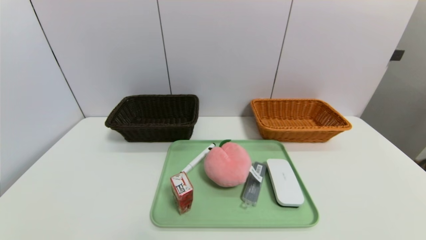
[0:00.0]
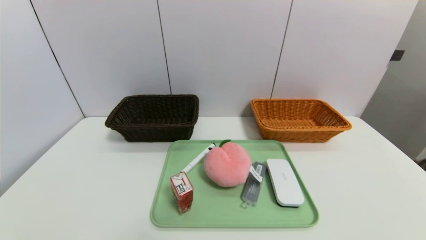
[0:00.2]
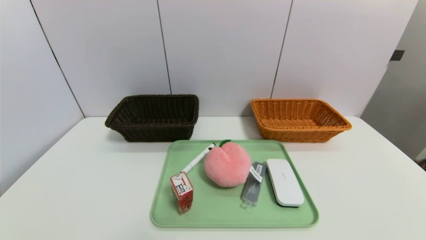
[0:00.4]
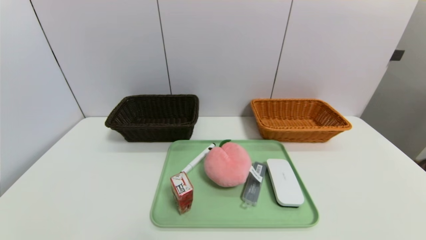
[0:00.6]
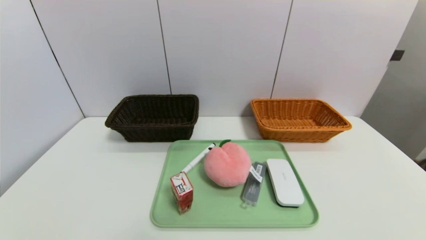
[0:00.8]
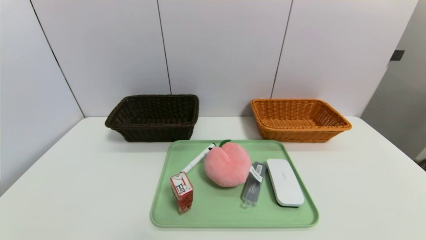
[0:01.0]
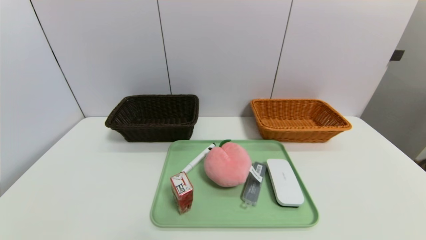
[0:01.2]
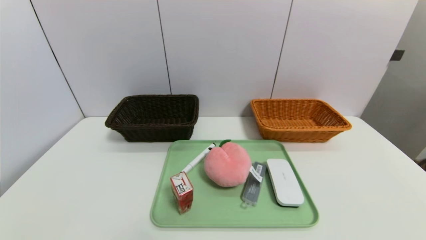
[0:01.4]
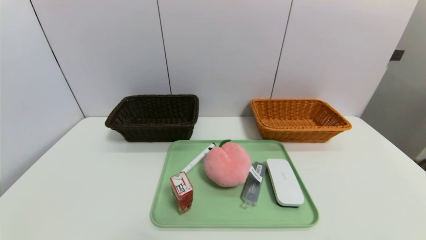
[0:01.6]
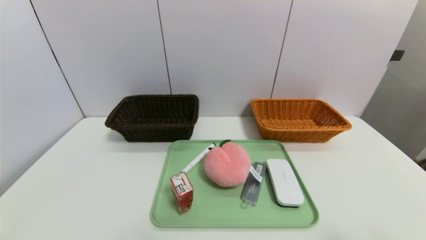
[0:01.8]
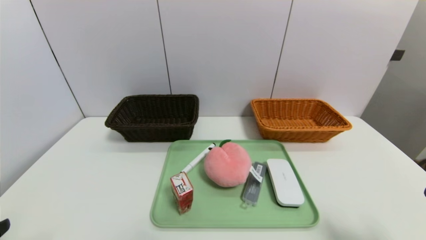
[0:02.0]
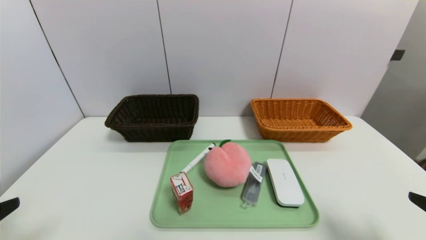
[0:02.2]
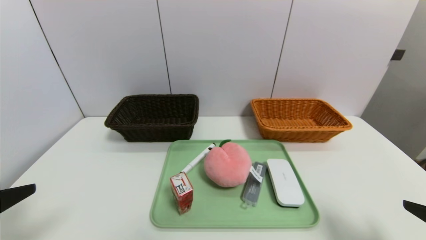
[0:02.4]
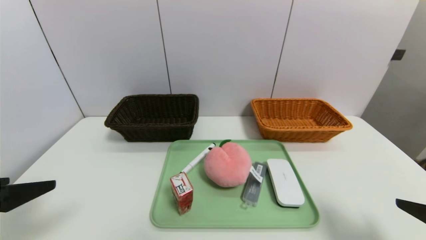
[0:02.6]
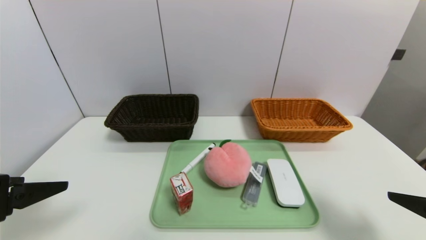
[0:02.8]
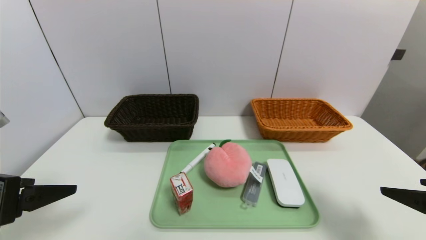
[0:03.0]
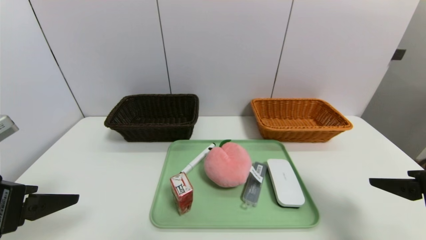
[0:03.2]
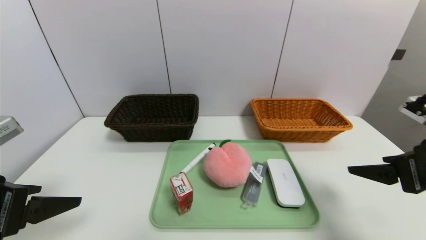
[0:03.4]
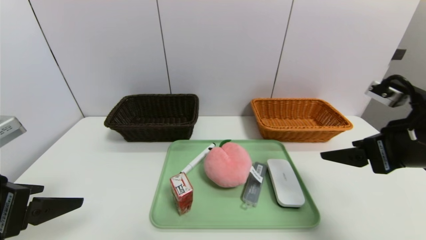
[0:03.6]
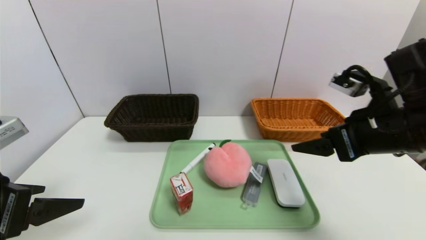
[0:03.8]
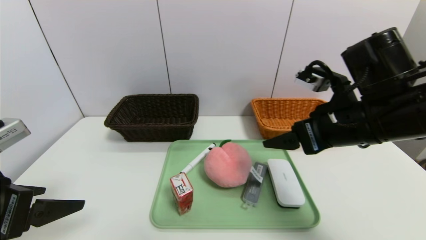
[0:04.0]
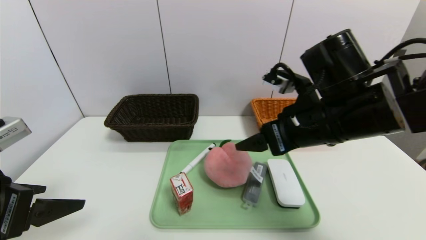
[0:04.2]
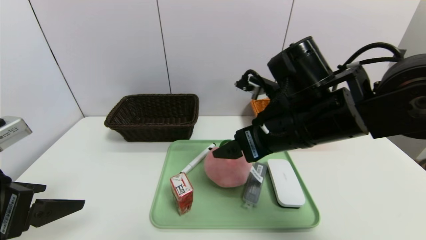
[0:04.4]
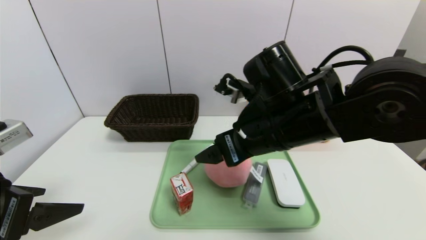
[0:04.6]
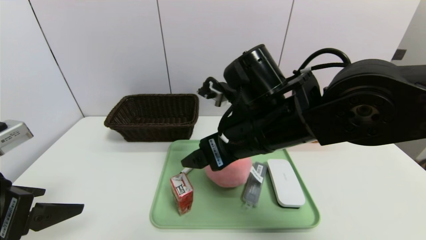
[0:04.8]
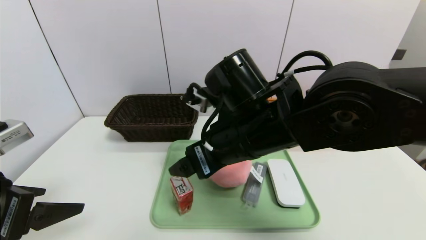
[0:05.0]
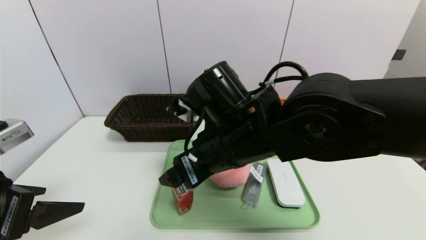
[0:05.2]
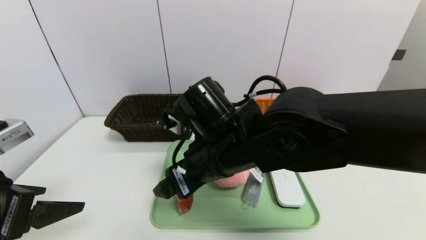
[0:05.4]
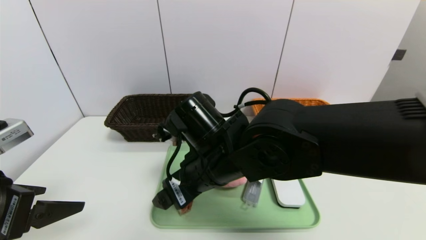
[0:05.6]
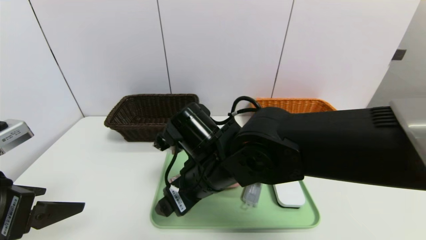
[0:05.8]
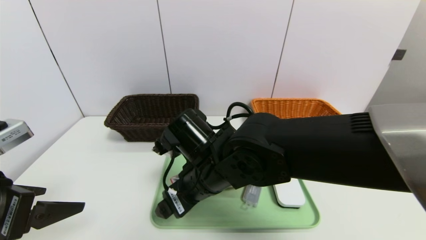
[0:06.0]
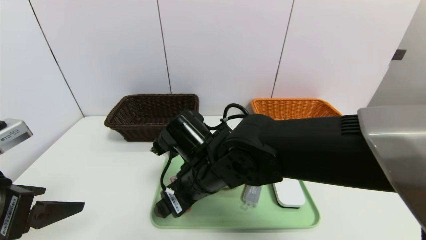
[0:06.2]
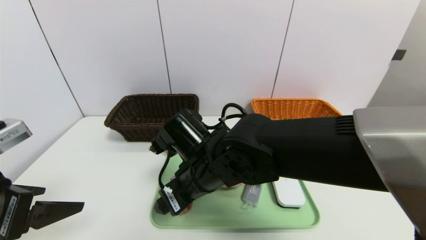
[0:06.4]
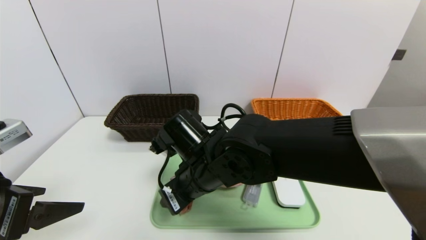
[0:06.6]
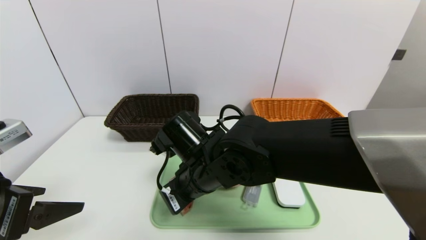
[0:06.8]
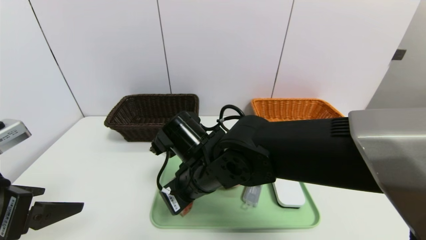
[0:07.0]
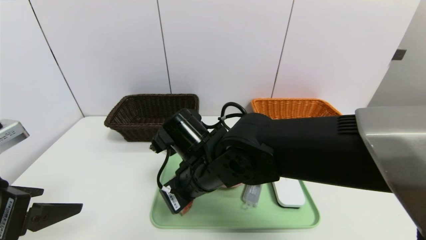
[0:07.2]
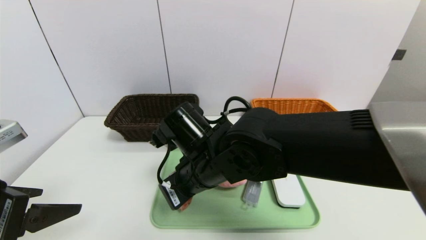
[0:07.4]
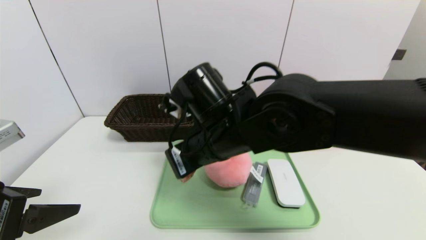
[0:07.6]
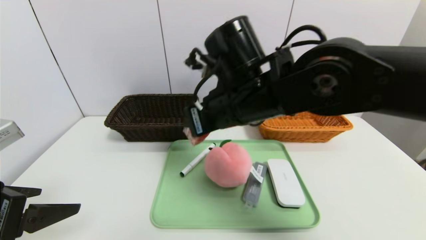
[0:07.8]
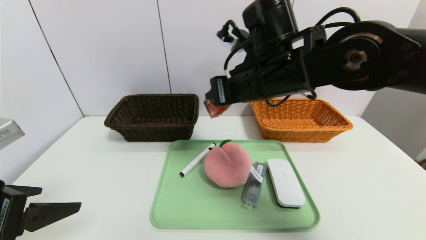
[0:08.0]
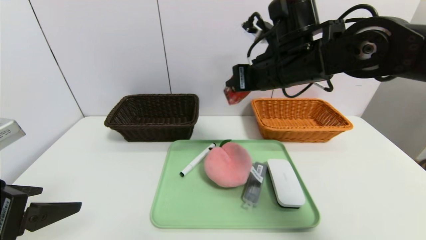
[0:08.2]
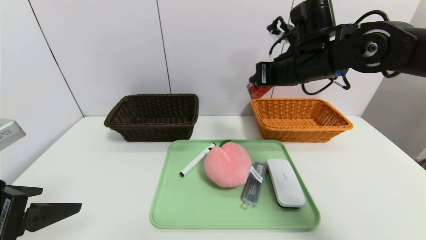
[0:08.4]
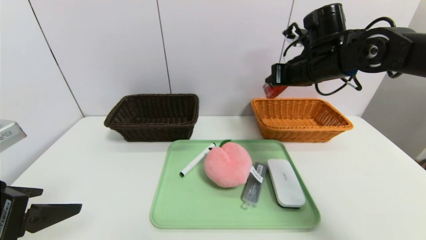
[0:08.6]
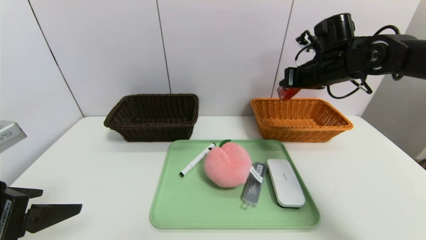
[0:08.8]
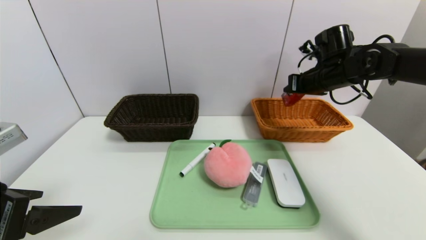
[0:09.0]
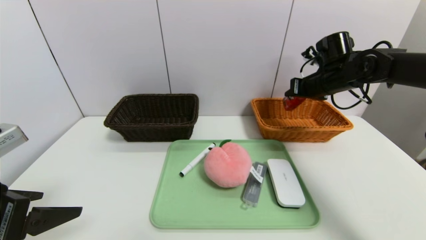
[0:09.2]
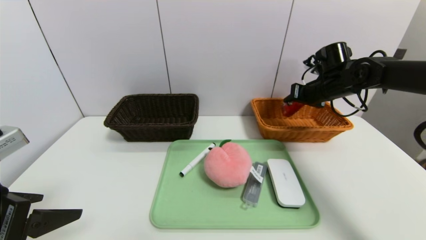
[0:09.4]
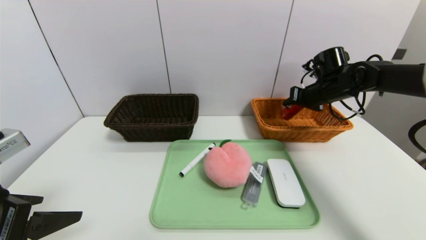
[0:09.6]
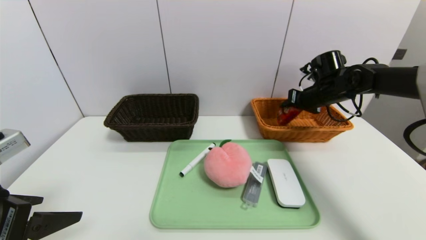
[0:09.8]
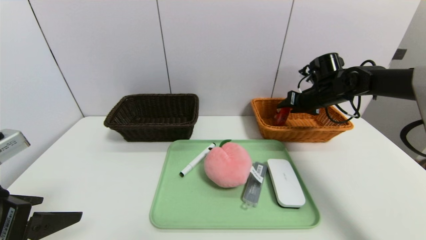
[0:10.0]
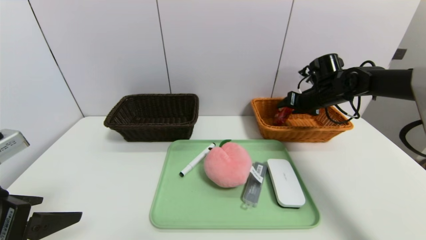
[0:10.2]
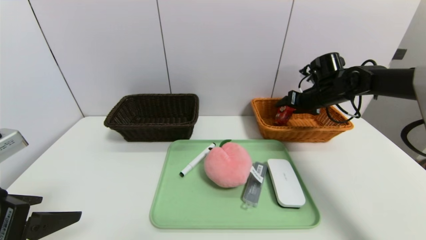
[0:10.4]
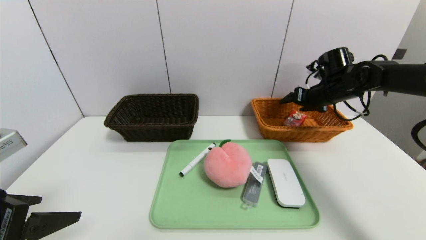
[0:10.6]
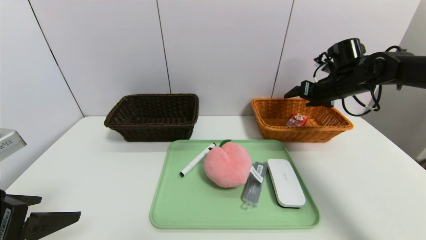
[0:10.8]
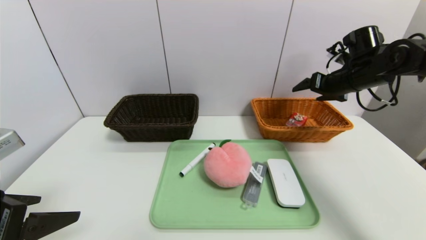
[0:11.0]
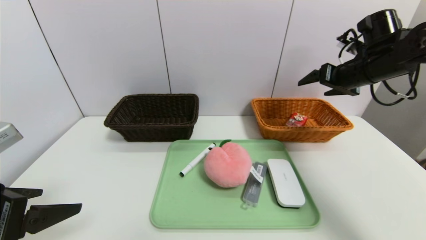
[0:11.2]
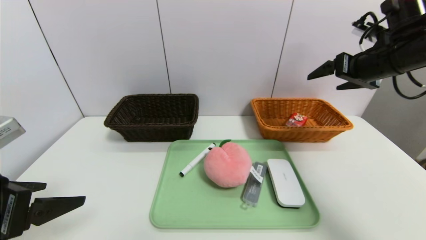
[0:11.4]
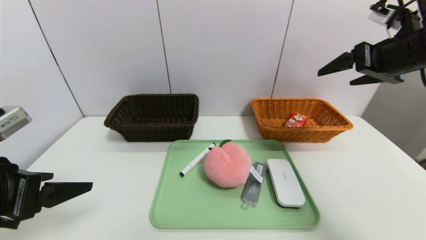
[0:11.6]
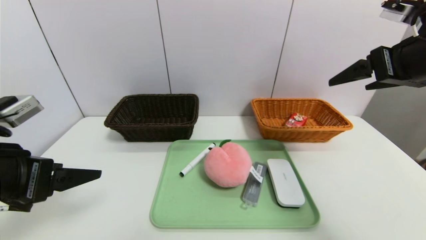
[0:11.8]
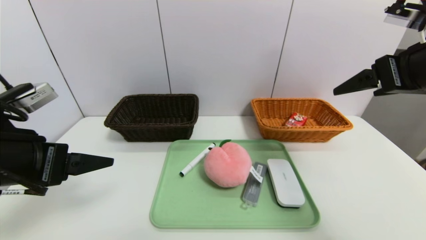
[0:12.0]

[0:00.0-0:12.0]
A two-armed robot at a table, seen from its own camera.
Task of the whole recording: place the food in the right basket with the right gripper, and place the non food items in the left basket with the left gripper.
Step, 0:00.0 to 0:10.8: Grasp the milk and put it in the right basket.
0:01.6 to 0:03.0: The right gripper goes about 10 cm forward. The left gripper travels forward and upward by roughly 15 cm.
0:03.0 to 0:04.4: The right gripper goes some 25 cm to the left and forward.
0:04.4 to 0:06.0: The right gripper heads to the left and downward, covering about 15 cm.
0:06.0 to 0:07.6: The right gripper is displaced upward by about 5 cm, and closes its fingers.
0:07.6 to 0:09.0: The right gripper travels to the right and forward by about 30 cm.
0:09.0 to 0:10.4: The right gripper shifts approximately 5 cm downward, and opens.
0:10.4 to 0:12.0: The left gripper heads forward, covering roughly 5 cm; the right gripper heads backward and upward, covering approximately 25 cm.

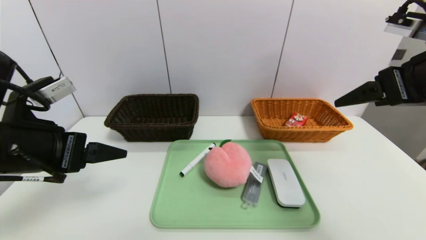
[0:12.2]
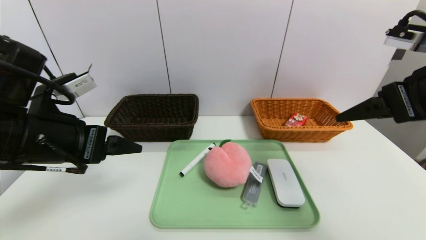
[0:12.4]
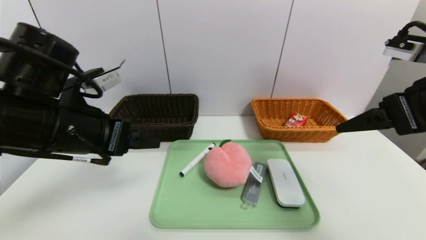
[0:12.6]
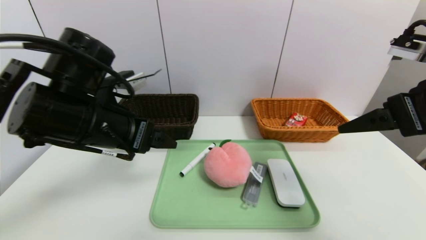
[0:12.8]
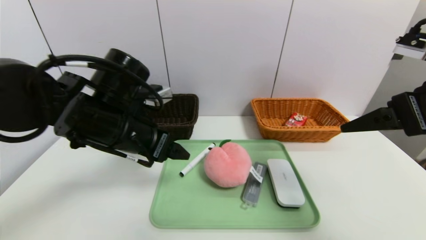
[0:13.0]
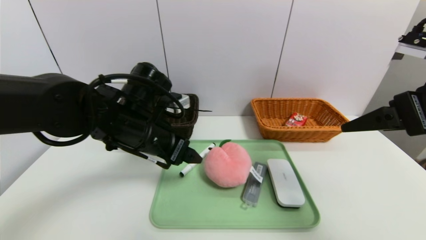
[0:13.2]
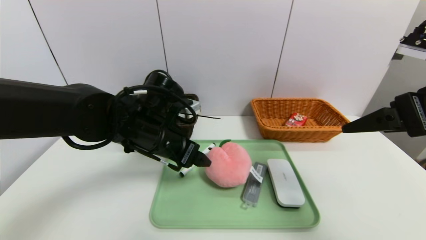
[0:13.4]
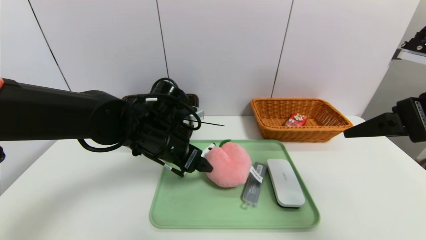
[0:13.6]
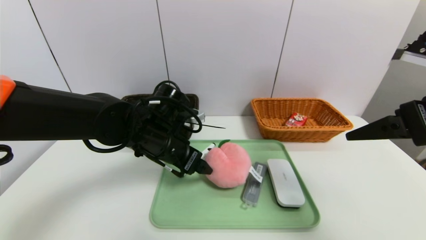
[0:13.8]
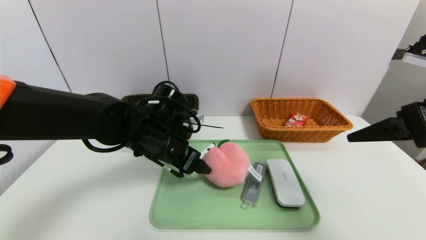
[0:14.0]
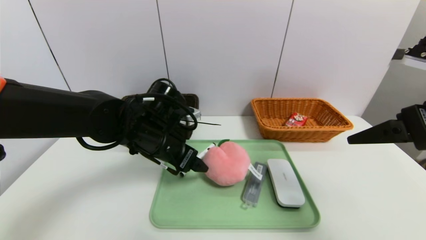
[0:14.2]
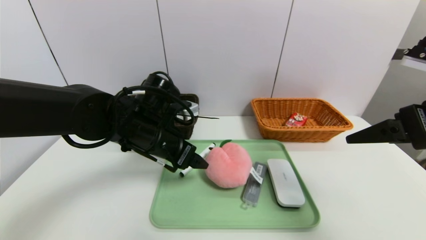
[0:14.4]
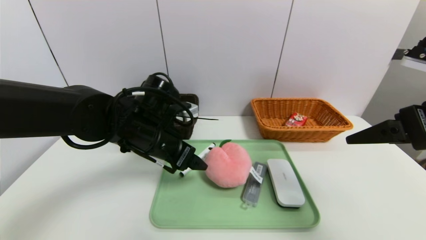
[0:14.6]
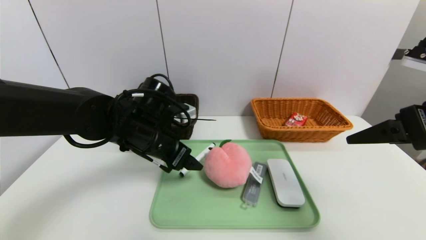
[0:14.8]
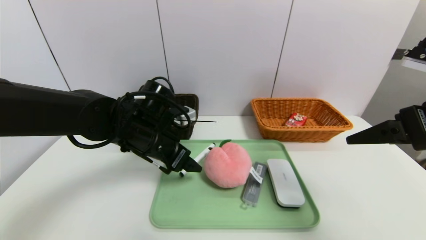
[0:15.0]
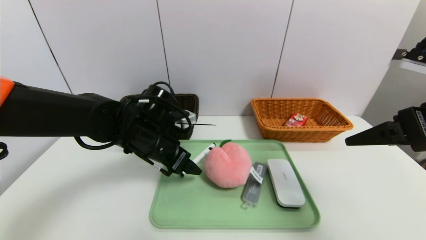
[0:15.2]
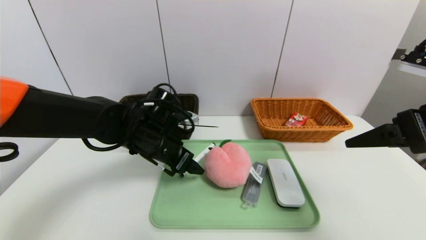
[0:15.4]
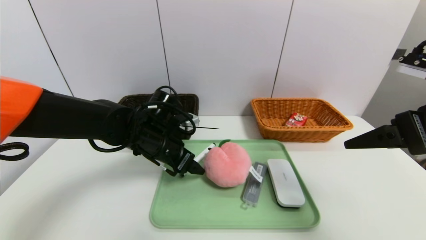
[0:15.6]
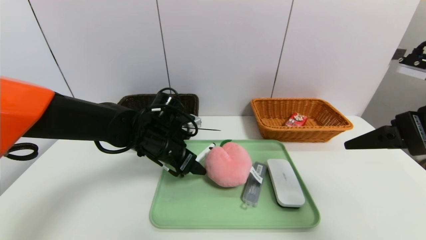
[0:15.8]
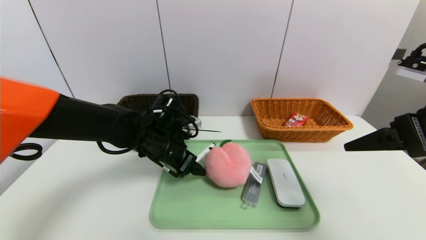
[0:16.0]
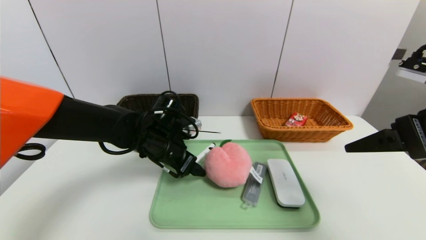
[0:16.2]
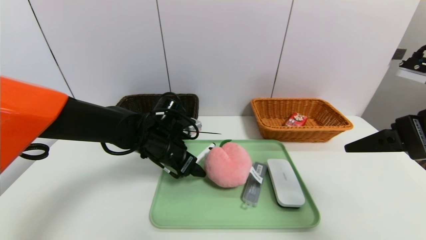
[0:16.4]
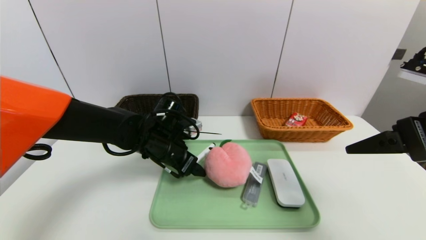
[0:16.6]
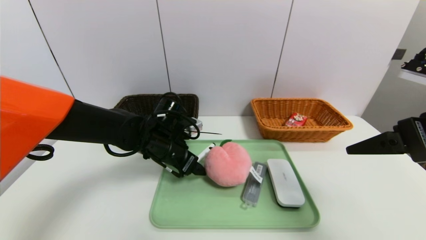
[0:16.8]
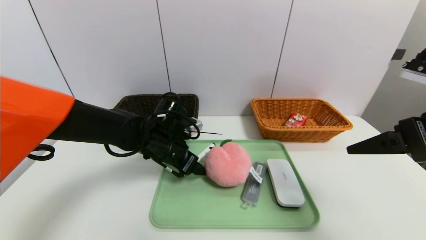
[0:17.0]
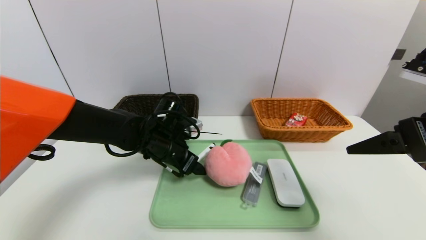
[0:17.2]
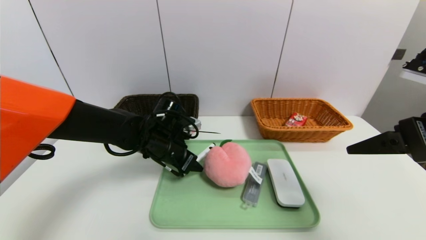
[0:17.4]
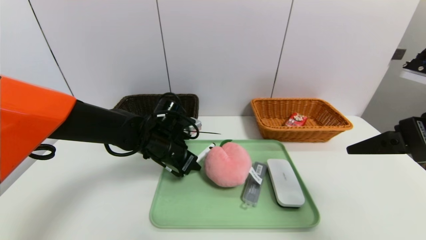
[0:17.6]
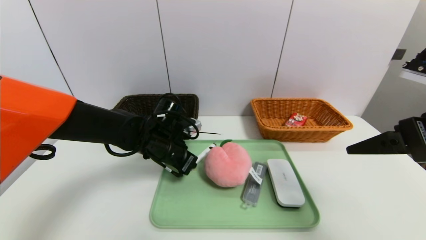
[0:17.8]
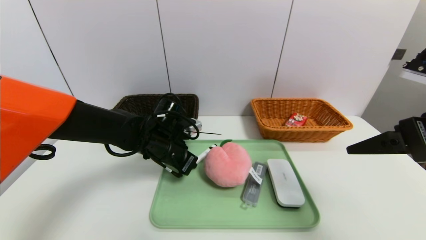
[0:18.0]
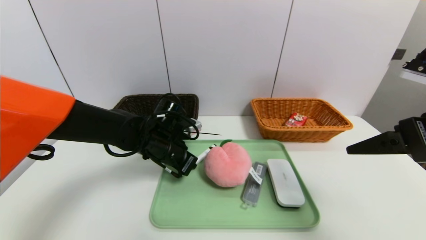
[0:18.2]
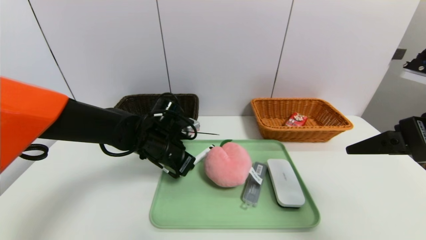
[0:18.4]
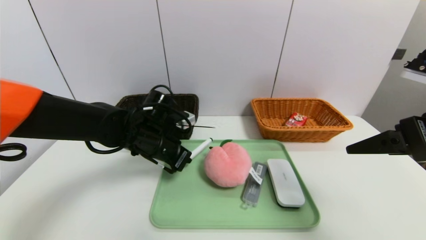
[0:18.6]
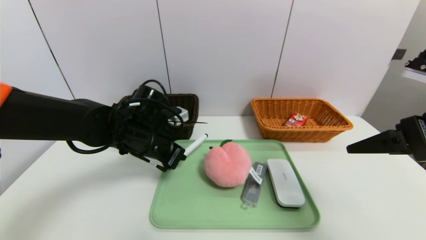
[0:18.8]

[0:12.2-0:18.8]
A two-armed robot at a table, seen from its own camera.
Task of the whole recording: place the food in the right basket with the right gripper, and place the non food items in the left basket with the left gripper.
0:12.2 to 0:13.8: The left gripper travels to the right, forward and downward by approximately 20 cm.
0:13.8 to 0:15.4: There are only small adjustments of the grippers.
0:15.4 to 0:17.2: The grippers make only small movements.
0:17.2 to 0:18.8: The left gripper shifts by approximately 5 cm, and closes its fingers.
